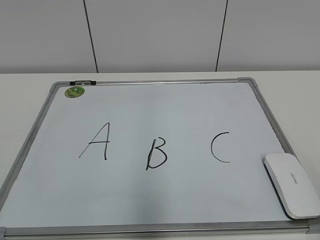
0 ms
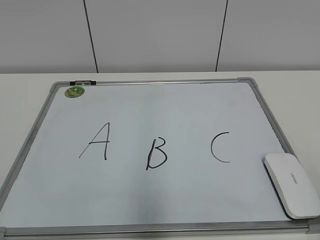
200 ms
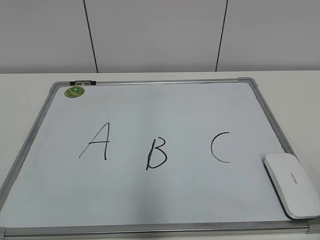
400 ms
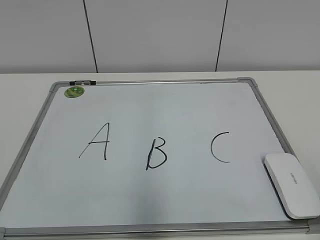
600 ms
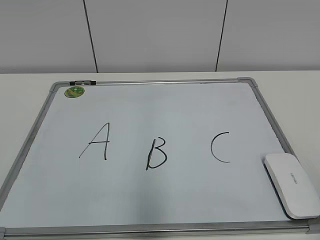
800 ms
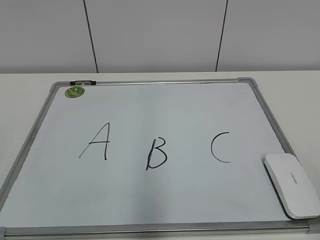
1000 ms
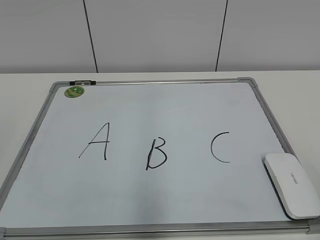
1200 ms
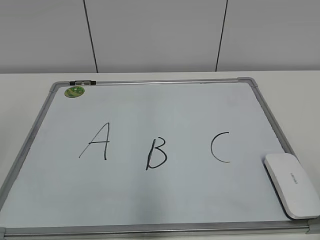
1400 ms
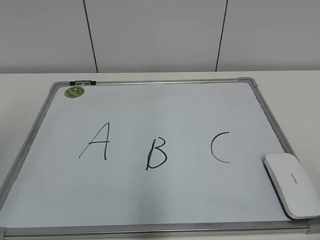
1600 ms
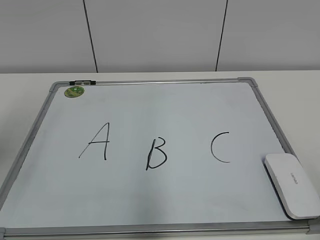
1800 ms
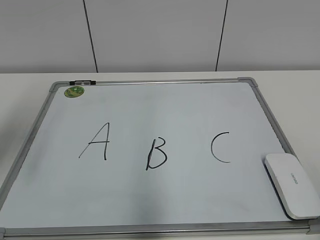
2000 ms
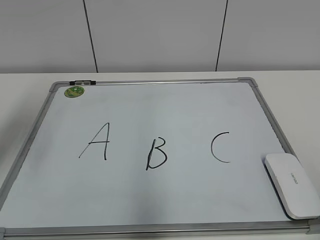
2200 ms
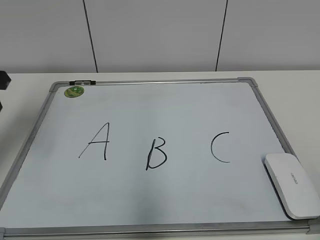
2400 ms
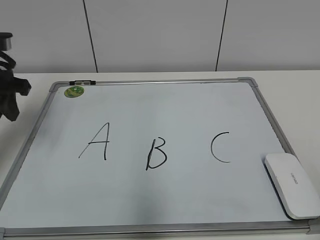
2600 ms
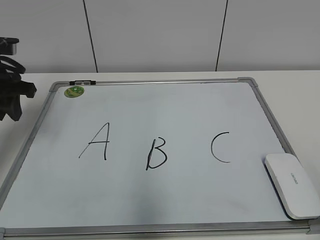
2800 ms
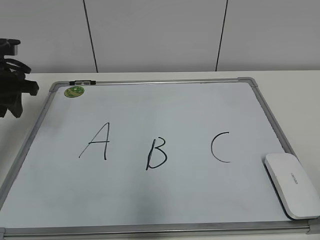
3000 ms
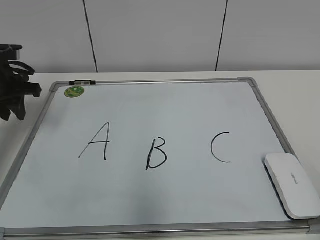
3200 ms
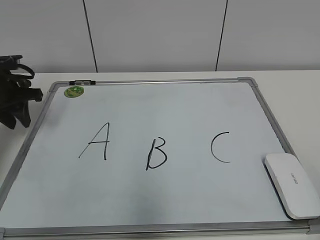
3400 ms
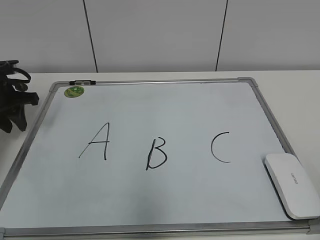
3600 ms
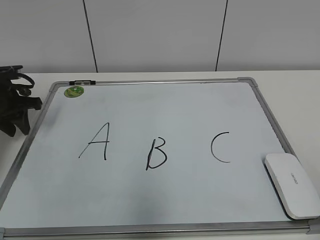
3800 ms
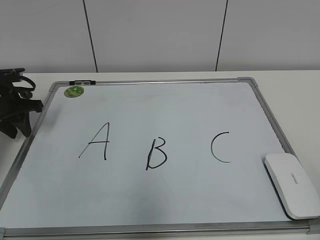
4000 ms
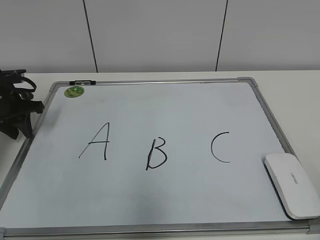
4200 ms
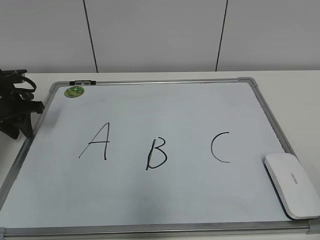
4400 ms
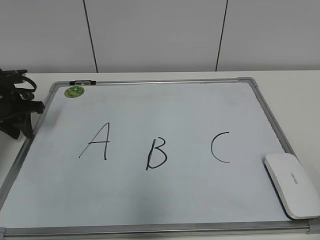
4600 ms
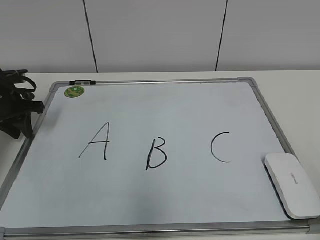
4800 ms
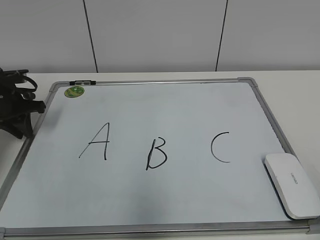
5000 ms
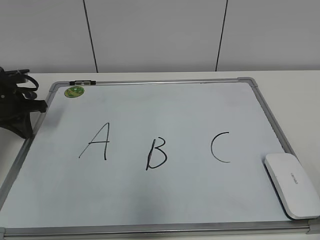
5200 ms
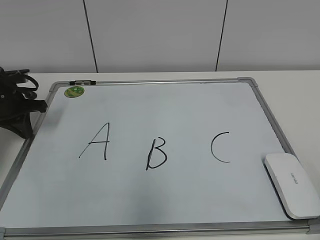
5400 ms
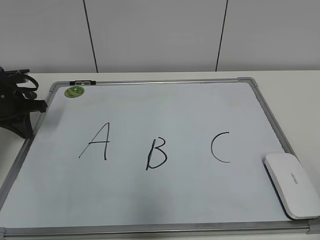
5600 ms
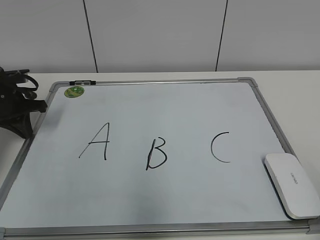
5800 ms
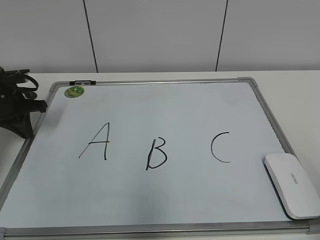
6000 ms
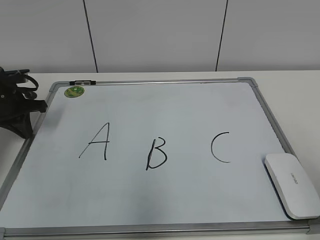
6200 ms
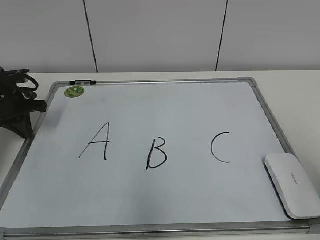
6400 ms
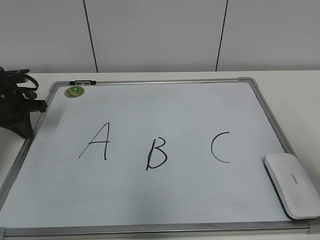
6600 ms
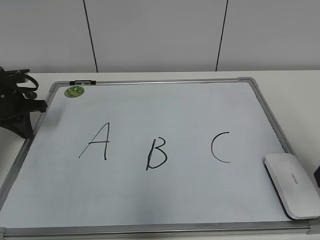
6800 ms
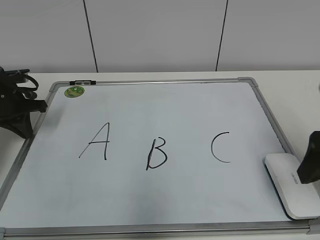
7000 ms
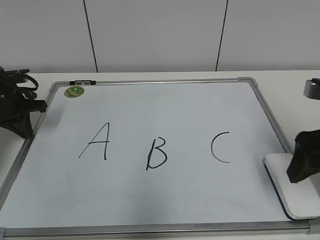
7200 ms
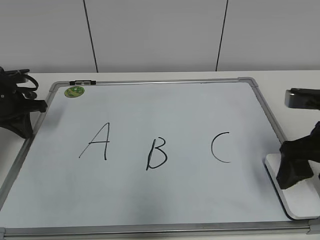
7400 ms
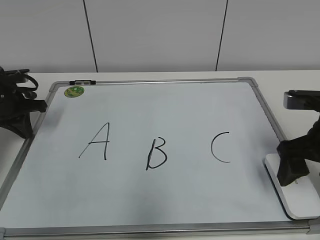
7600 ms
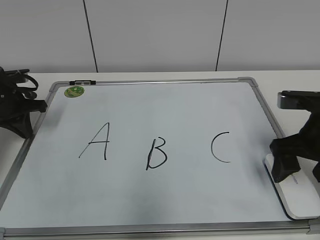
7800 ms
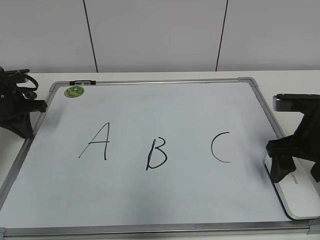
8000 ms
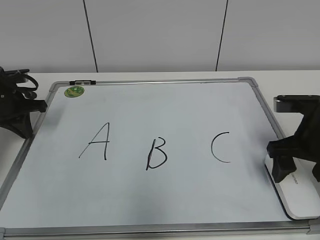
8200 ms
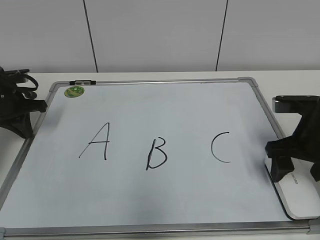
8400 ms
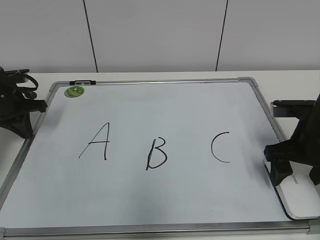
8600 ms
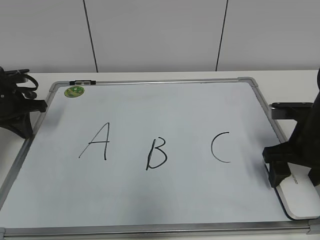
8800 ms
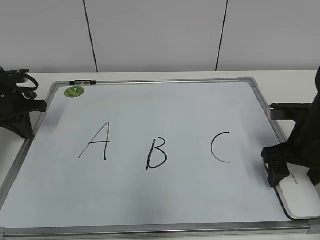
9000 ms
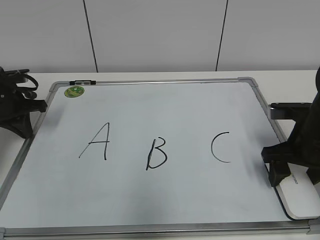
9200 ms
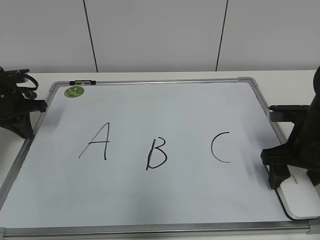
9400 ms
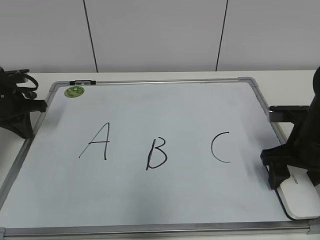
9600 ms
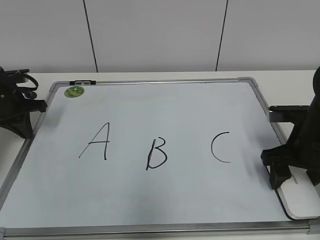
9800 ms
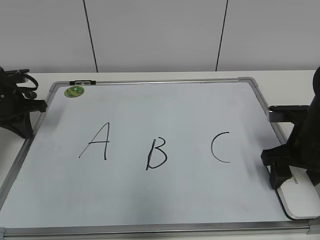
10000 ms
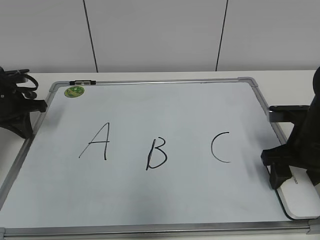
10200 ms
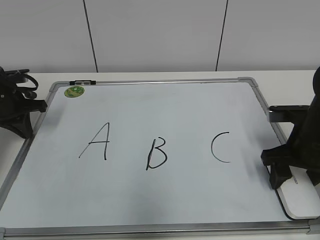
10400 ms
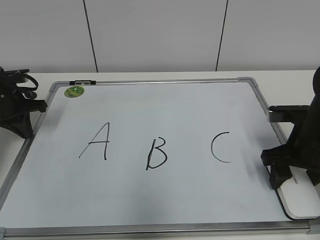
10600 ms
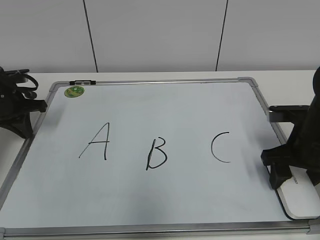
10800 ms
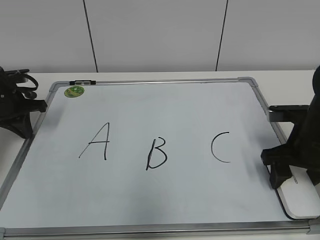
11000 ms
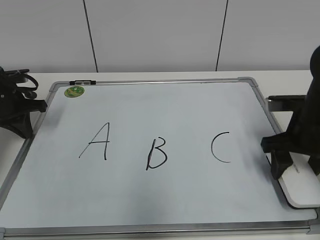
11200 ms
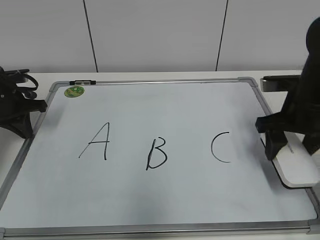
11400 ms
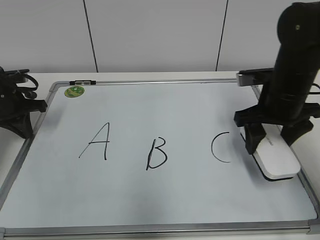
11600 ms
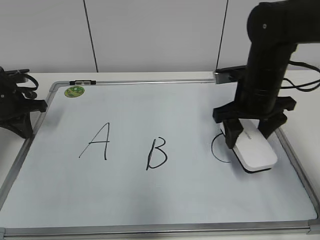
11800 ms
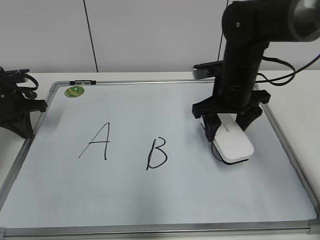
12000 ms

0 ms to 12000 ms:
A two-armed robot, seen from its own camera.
Task of the whole recording: pick up the eraser on the blackboard and erase the letter "B".
Step, 0 ms to 6200 ms: Hold the drawing board steady with your left hand.
Step, 6400 ms to 9200 ms: Grab the eraser with your right hand.
1600 ms to 3000 ms: The left gripper is displaced forward and downward by about 25 cm.
3000 ms to 4400 ms: The left gripper moves downward, approximately 10 cm.
4400 ms to 6000 ms: The left gripper closes its fingers.
6000 ms to 7600 ms: The right gripper goes approximately 20 cm forward, and opens its fingers.
7600 ms to 9000 ms: The right gripper goes some 5 cm downward.
9000 ms to 10400 ms: The right gripper closes up.
10400 ms to 12000 ms: The right gripper heads to the left, forward and upward, covering about 15 cm.

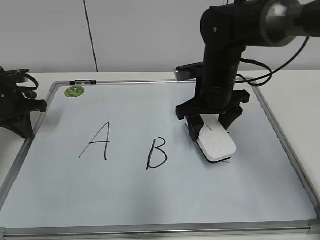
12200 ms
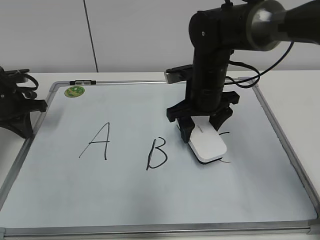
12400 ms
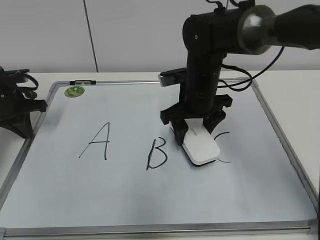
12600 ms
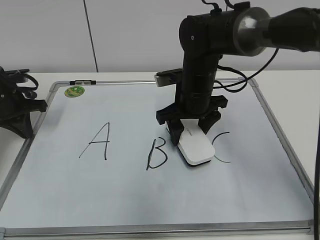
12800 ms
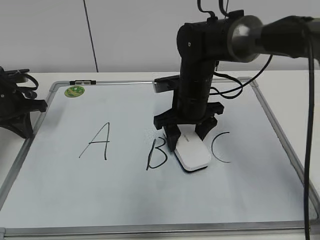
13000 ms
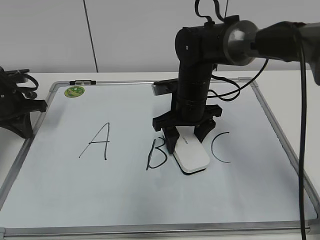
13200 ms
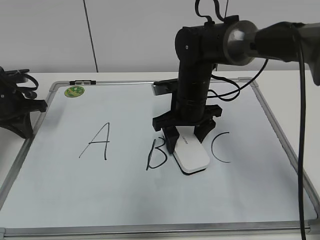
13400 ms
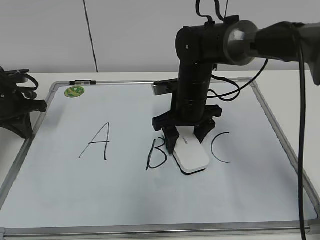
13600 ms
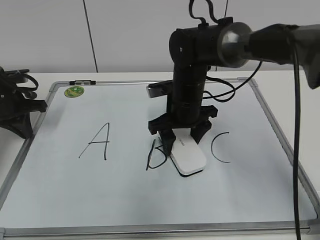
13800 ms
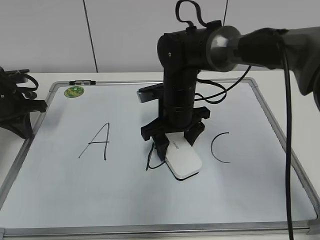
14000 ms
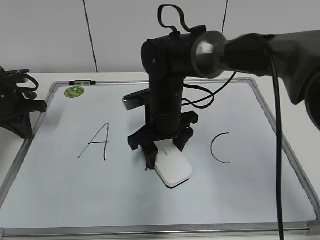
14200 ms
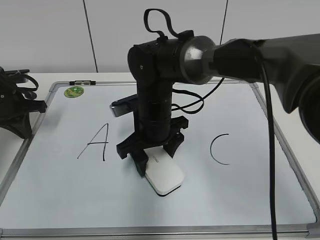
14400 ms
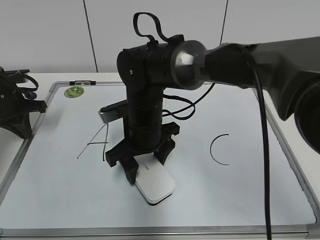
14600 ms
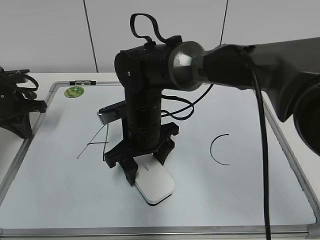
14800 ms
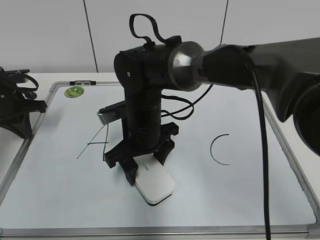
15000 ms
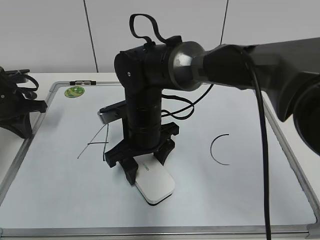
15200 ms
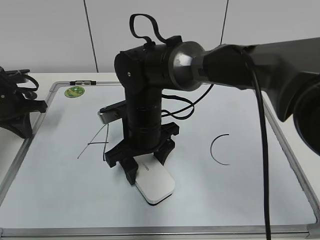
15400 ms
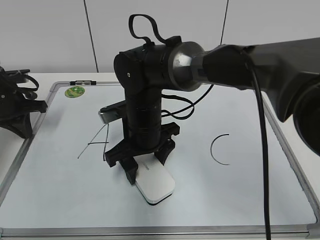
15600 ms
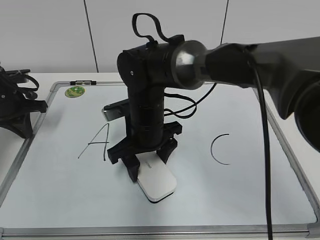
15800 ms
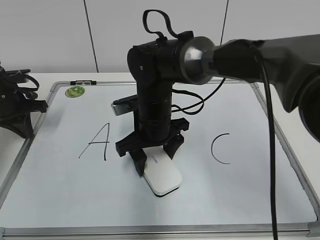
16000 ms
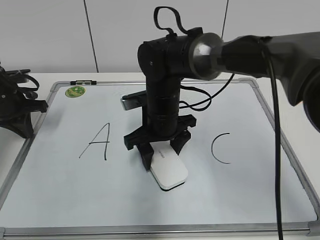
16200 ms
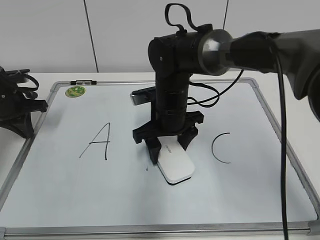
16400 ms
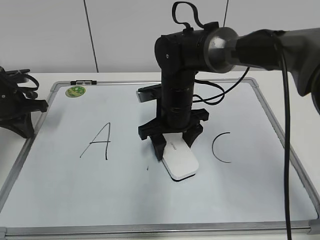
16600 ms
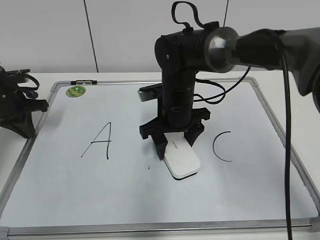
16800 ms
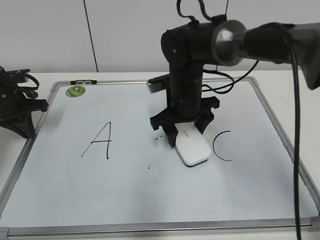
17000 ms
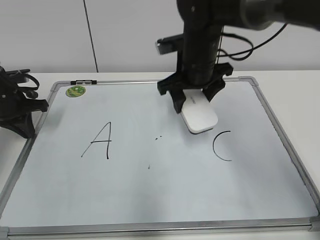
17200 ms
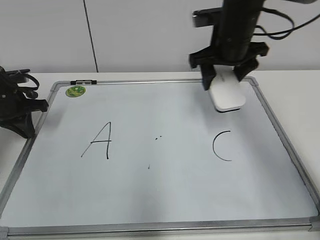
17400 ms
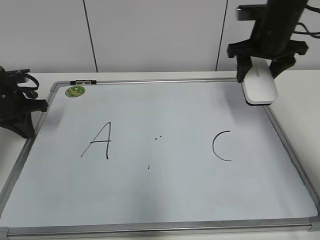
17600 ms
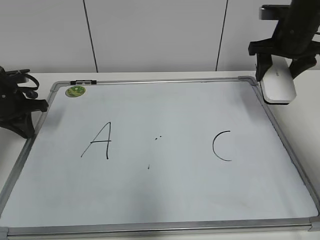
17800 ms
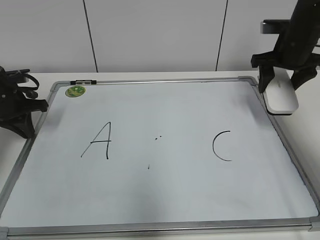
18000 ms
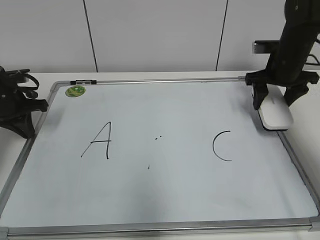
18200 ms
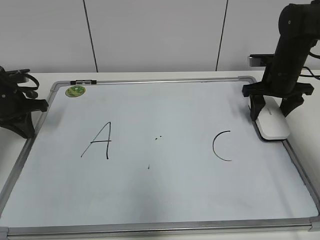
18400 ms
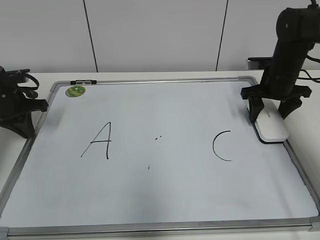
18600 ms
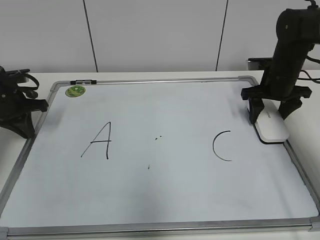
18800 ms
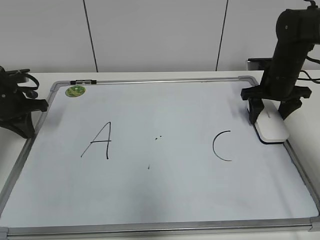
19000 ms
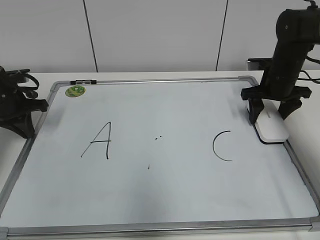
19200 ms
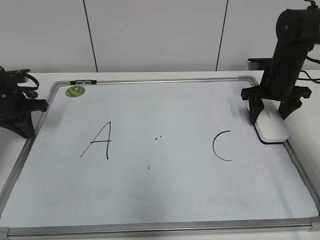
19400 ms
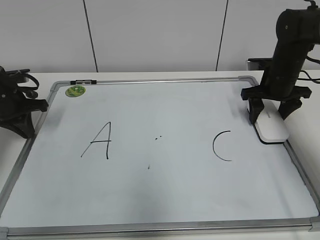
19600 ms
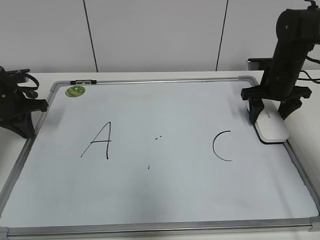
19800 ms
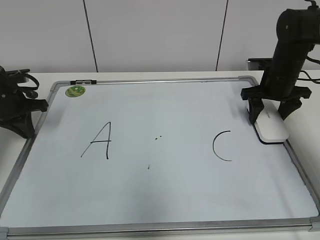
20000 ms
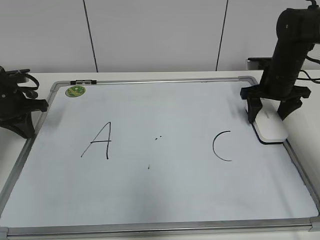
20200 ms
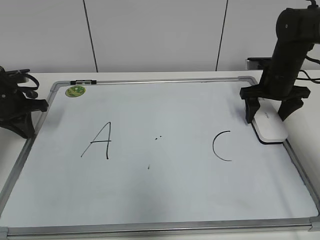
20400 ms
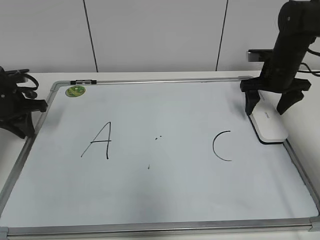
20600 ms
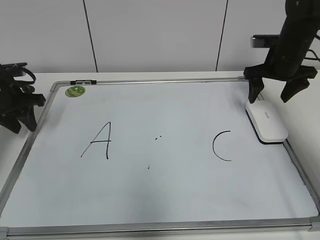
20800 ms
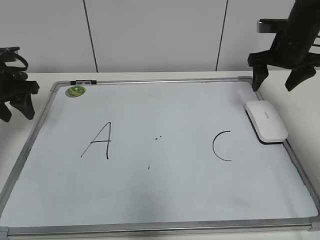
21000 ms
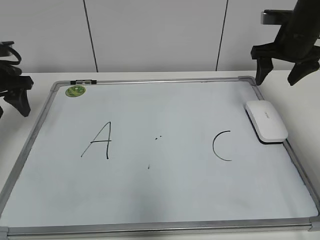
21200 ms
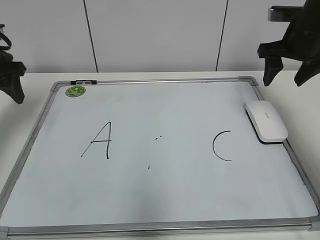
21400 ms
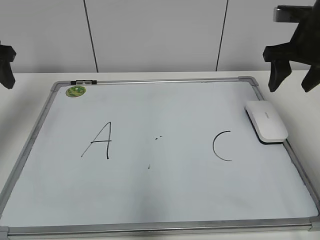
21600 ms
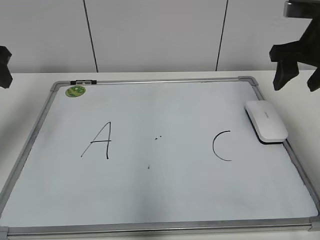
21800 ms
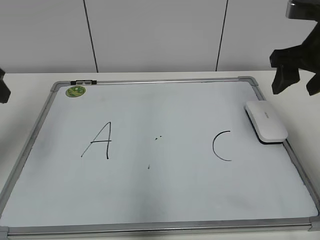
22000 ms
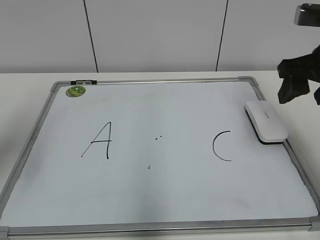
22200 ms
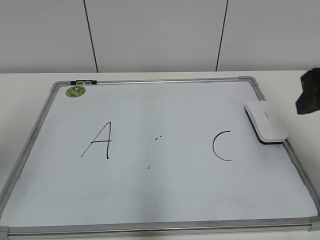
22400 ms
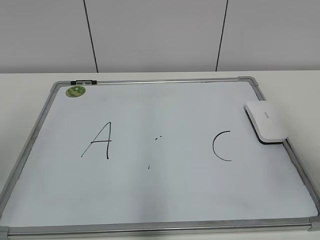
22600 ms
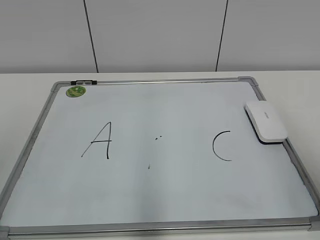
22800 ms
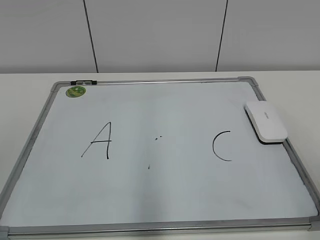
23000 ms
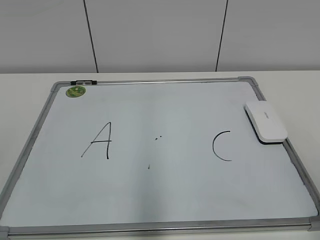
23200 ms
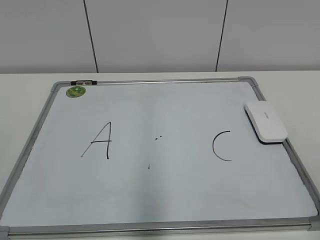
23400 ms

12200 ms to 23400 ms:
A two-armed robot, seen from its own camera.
Task of the whole recording: pick up the eraser on the blackboard and erase the letter "B".
Step, 12200 ms to 15800 ms: Erase the letter B with your right hand.
Step, 16000 ms to 19200 ms: Put down the eraser with your right hand.
12200 ms to 13800 ms: The right gripper goes approximately 5 cm to the left.
13800 ms to 15400 ms: The right gripper moves to the left and backward, roughly 10 cm.
15400 ms to 17000 ms: The right gripper goes roughly 10 cm to the right and forward.
17000 ms to 18600 ms: The right gripper is displaced to the right by roughly 20 cm.
18600 ms to 20200 ms: The two grippers keep their place.
20200 ms to 21800 ms: The two grippers go about 15 cm upward and backward. The right gripper opens, then closes once more. Meanwhile the left gripper opens.
21800 ms to 23400 ms: The grippers both shift backward by about 35 cm.
